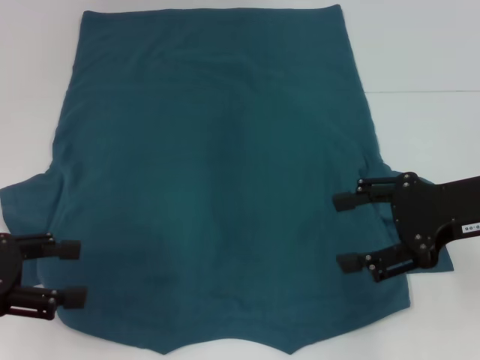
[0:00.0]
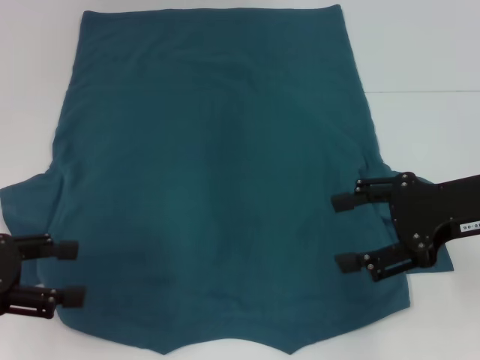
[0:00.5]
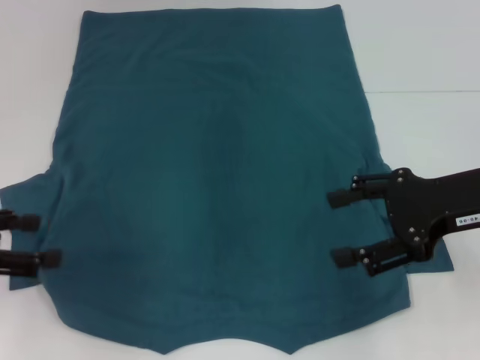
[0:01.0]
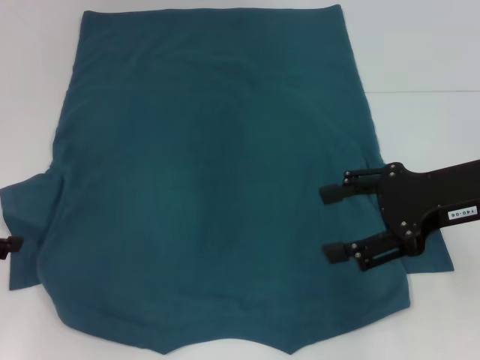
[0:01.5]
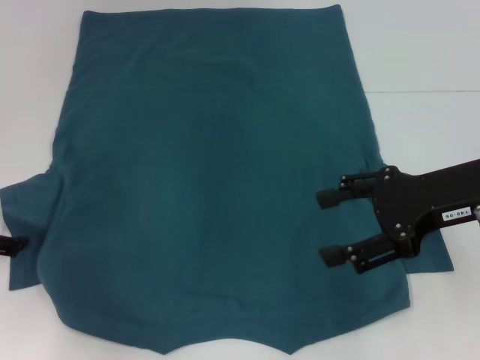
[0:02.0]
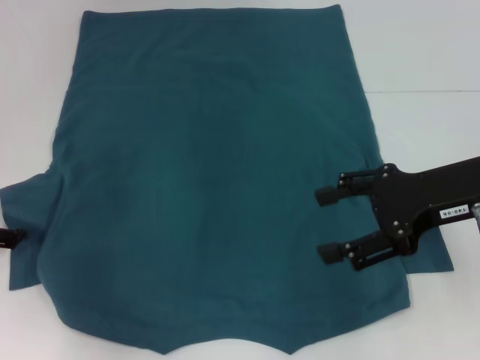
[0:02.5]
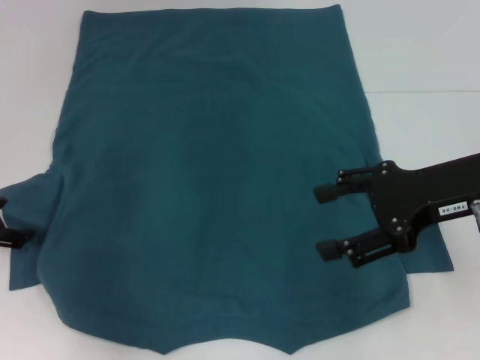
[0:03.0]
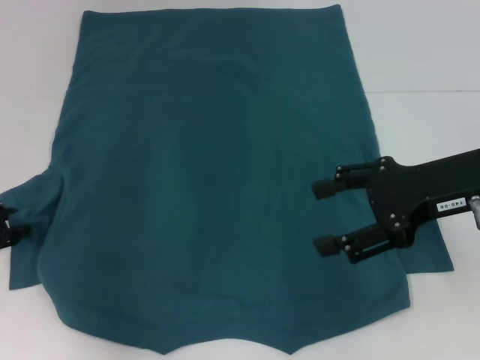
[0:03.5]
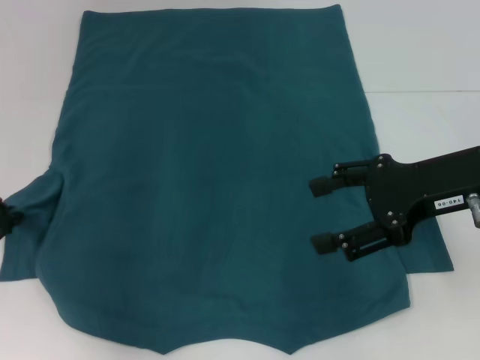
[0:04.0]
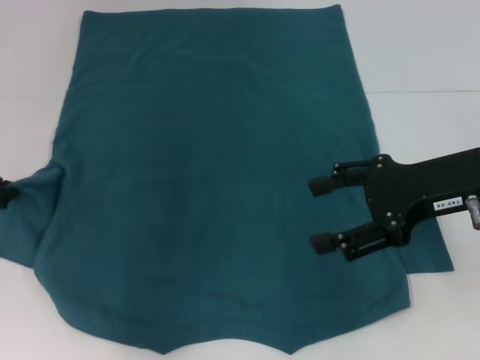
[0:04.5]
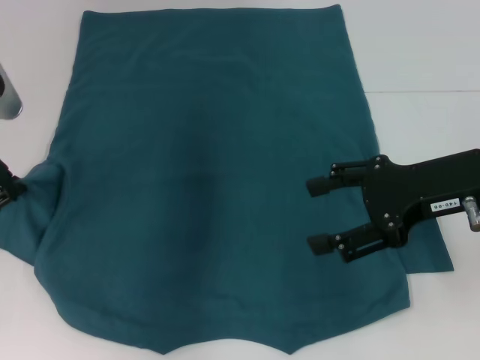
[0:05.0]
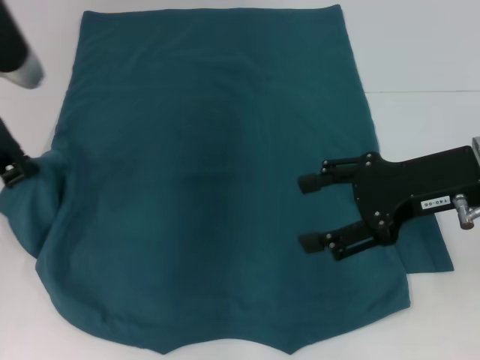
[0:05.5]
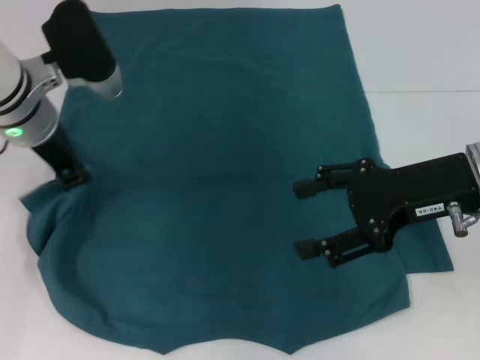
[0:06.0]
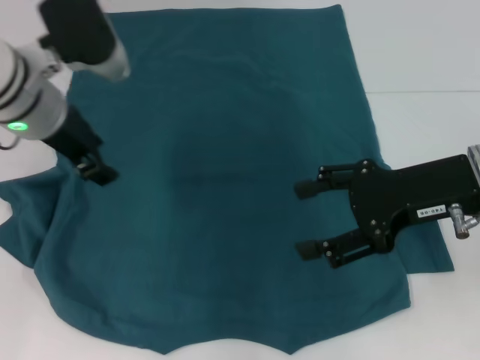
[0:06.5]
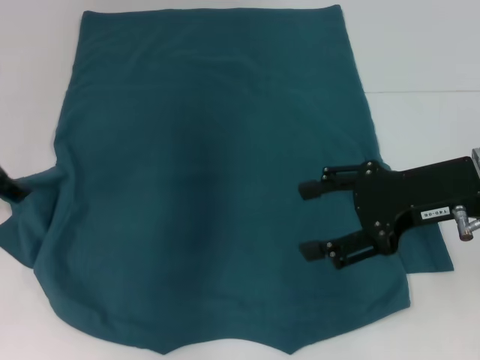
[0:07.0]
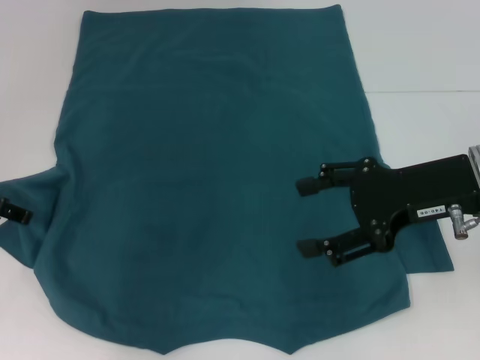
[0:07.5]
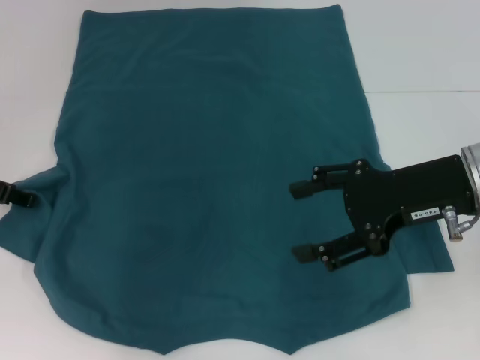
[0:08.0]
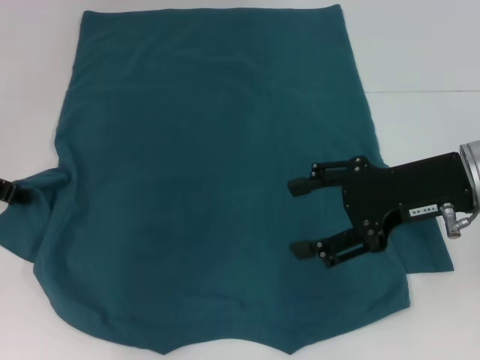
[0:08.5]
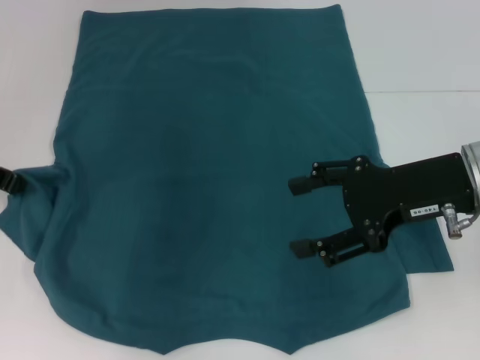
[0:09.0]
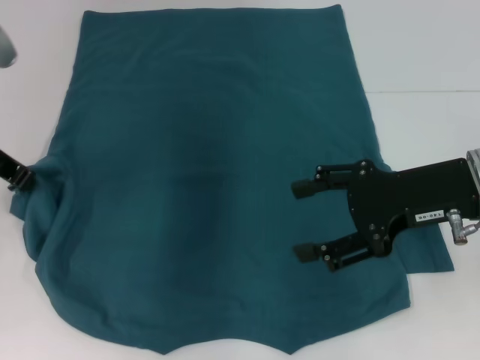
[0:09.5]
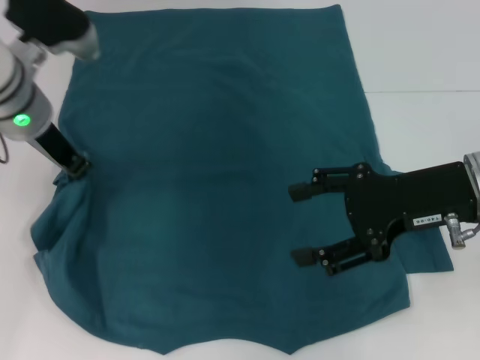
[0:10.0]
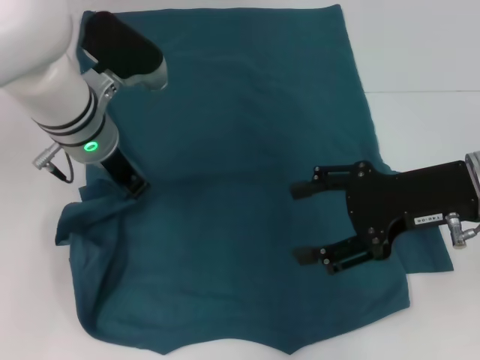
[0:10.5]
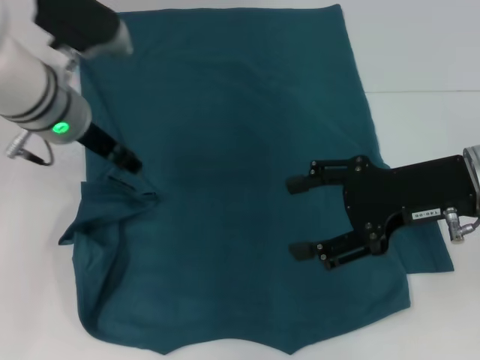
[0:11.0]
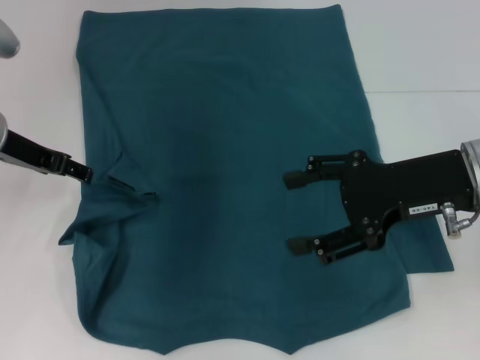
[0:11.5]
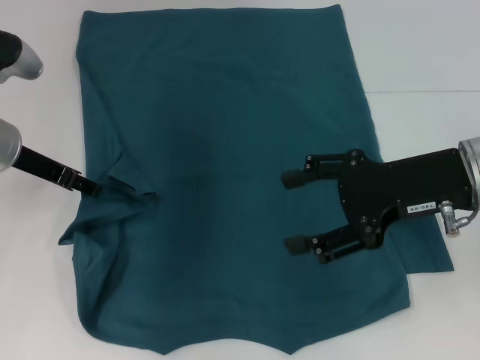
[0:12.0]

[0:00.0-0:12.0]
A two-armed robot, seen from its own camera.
0:00.0 to 0:02.0: The left gripper is displaced forward by approximately 5 cm.
0:02.0 to 0:04.0: The left gripper closes.
0:04.0 to 0:06.0: The left gripper moves to the right, upward and forward, approximately 15 cm.
0:06.0 to 0:08.0: The left gripper goes approximately 15 cm to the left and downward, and opens its fingers.
0:08.0 to 0:10.0: The left gripper is displaced to the right by some 10 cm, and closes its fingers.
0:10.0 to 0:12.0: The left gripper shifts about 5 cm to the left, and opens up.

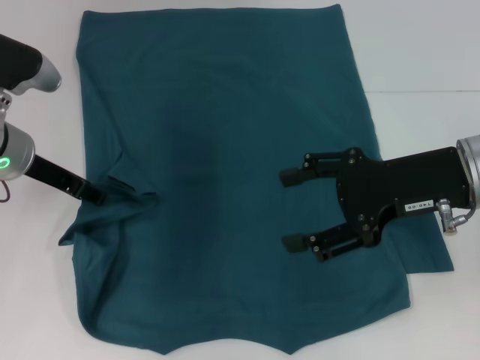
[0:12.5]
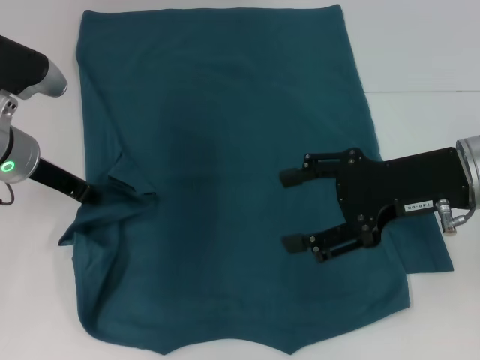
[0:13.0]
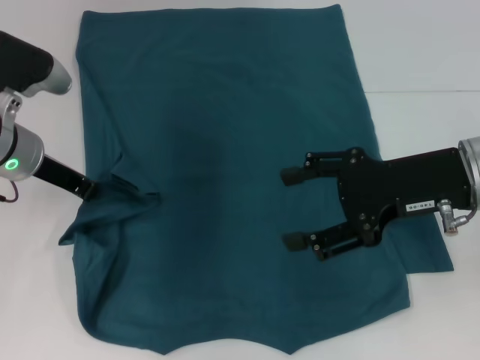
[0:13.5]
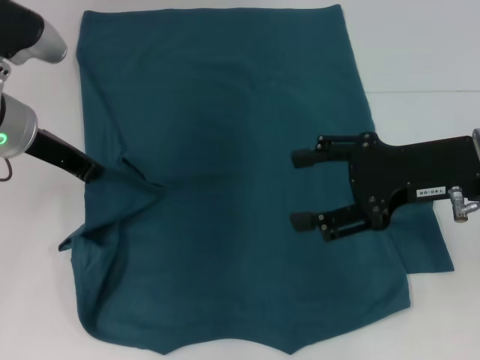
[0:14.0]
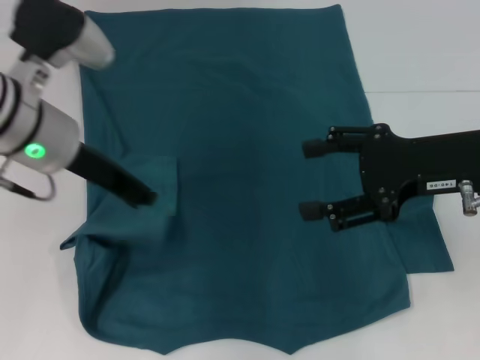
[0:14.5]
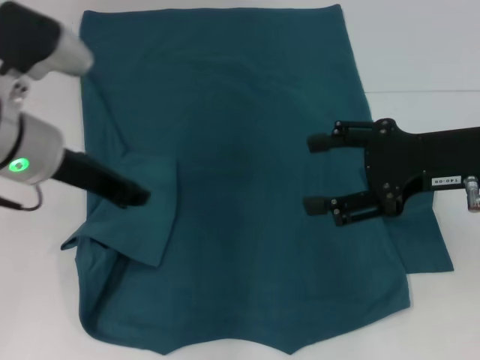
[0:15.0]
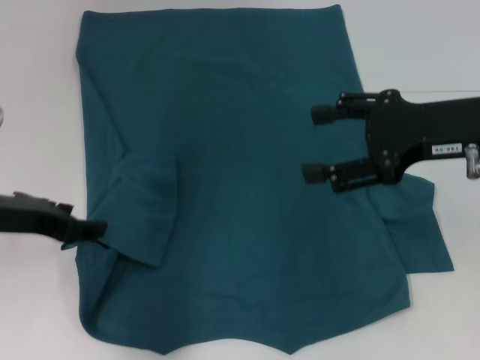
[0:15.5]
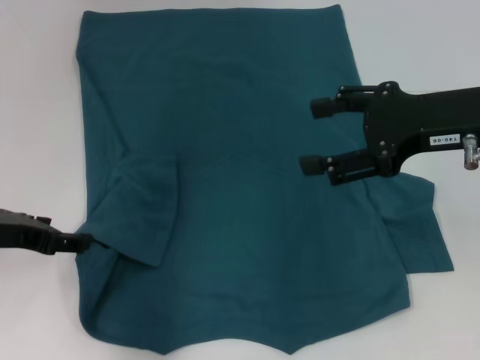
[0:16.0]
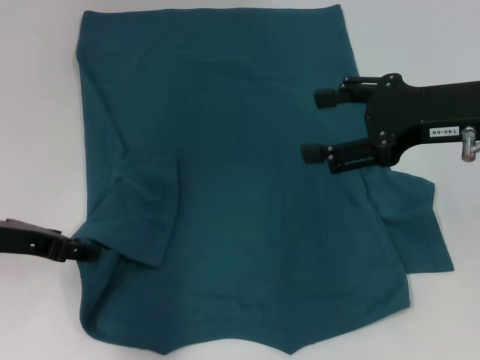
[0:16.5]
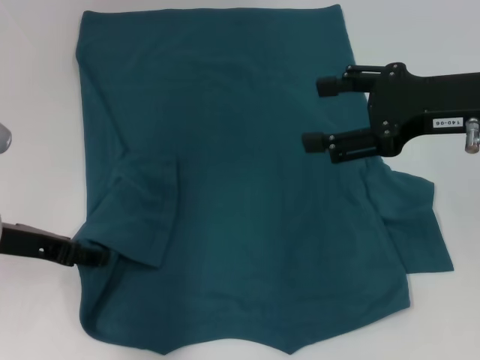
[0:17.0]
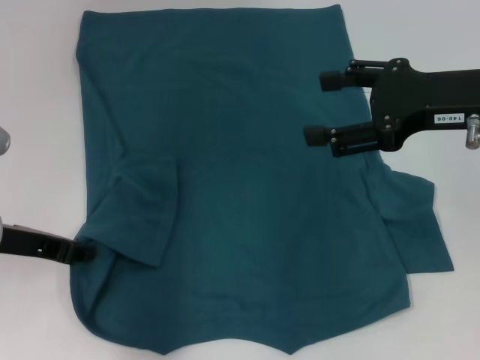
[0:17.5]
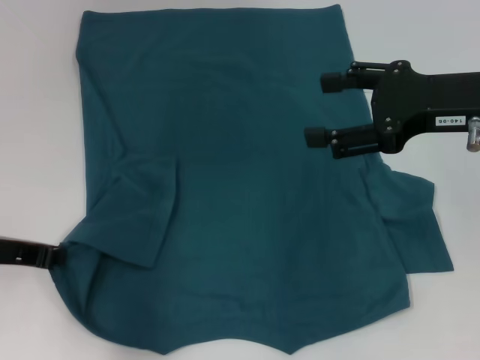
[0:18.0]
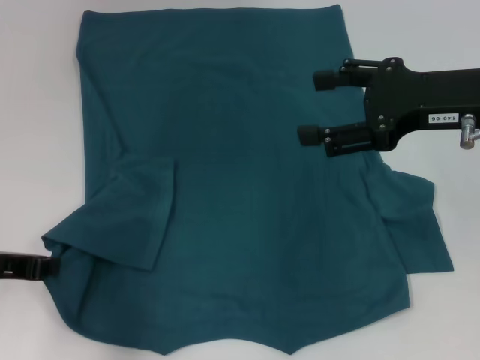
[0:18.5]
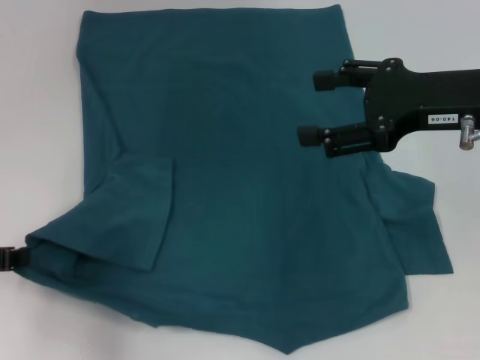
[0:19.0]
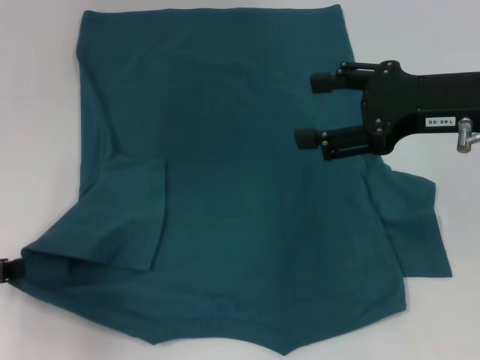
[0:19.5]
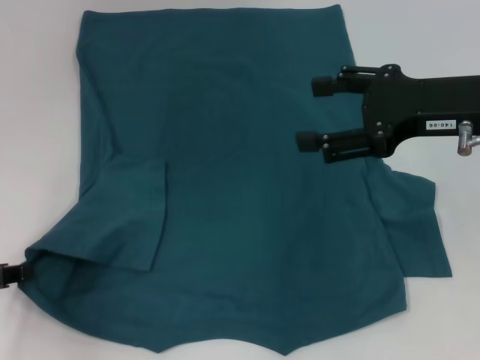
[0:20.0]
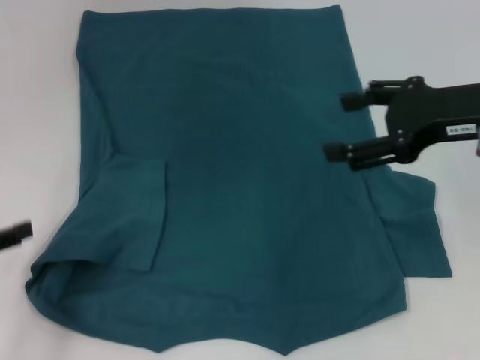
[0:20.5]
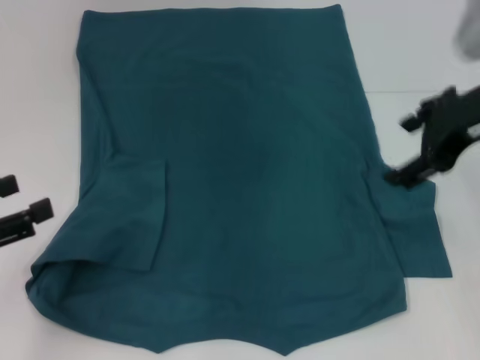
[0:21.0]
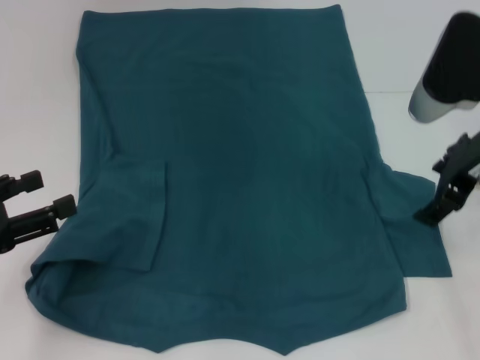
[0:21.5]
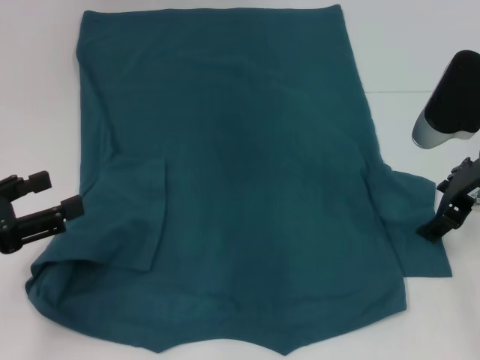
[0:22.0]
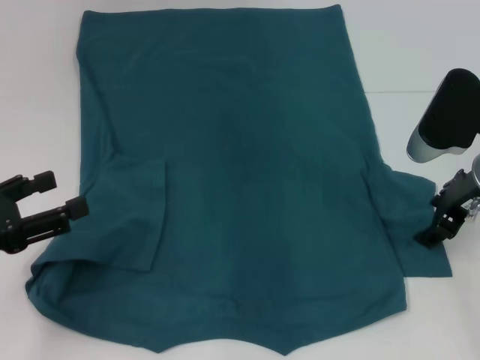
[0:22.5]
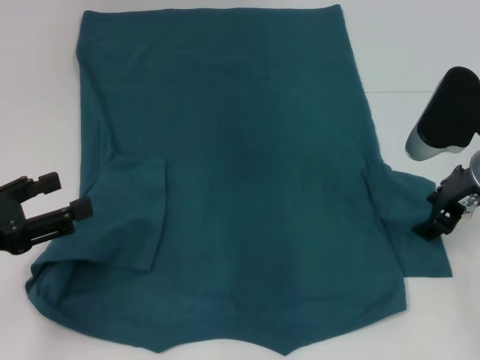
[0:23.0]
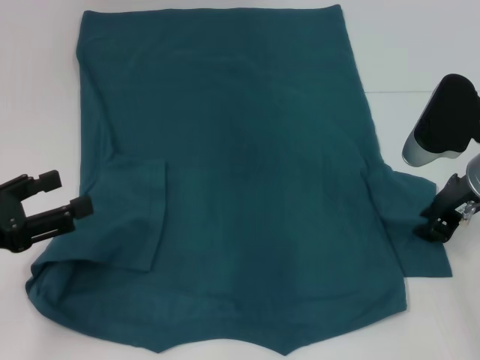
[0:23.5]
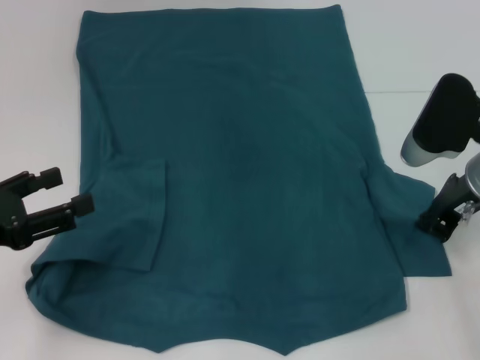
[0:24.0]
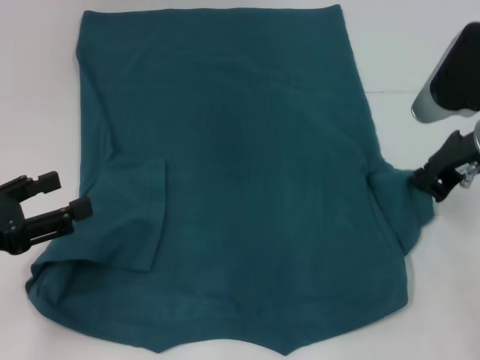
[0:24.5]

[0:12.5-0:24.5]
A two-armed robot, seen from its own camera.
Step, 0:12.5 to 0:20.0: Fold the bottom left sleeve with your left hand.
0:12.5 to 0:14.5: The left gripper heads to the right and upward, covering roughly 10 cm, and closes up.
0:14.5 to 0:16.5: The left gripper heads to the left, backward and downward, covering some 10 cm, and opens.
0:16.5 to 0:18.5: The left gripper closes.
0:18.5 to 0:20.5: The left gripper changes place by some 5 cm, and opens its fingers.
0:20.5 to 0:22.5: The left gripper opens up. The right gripper heads downward, covering roughly 10 cm.
0:22.5 to 0:24.5: The right gripper closes.

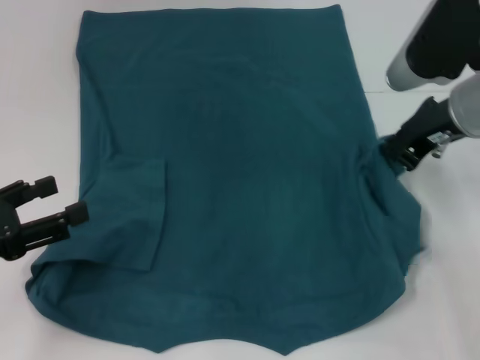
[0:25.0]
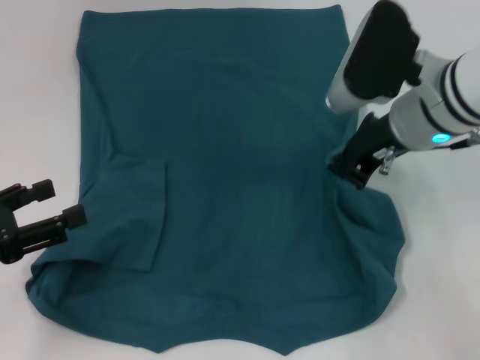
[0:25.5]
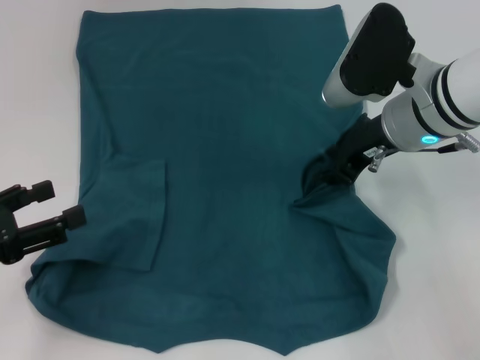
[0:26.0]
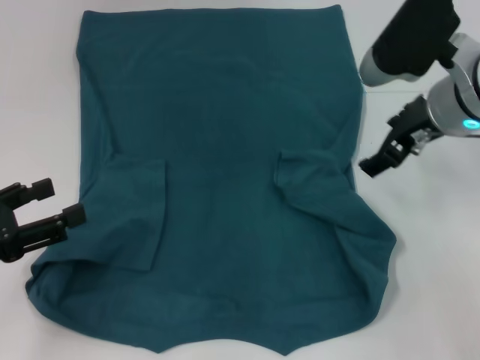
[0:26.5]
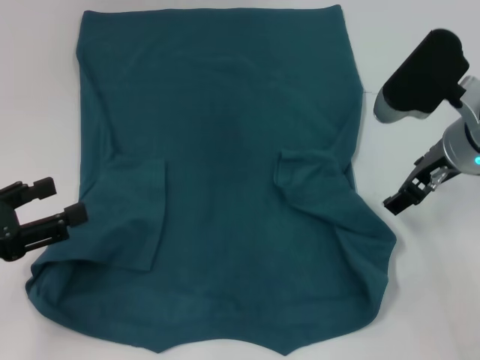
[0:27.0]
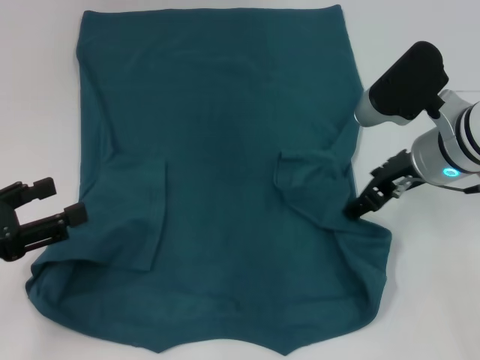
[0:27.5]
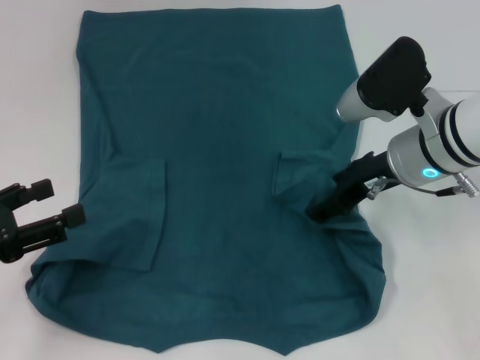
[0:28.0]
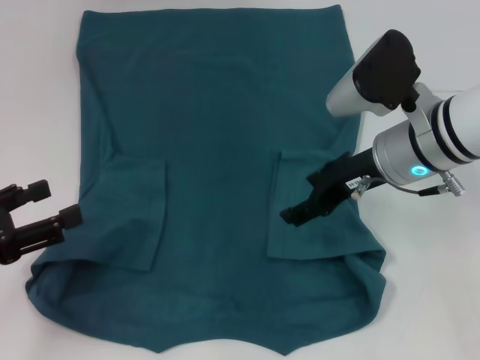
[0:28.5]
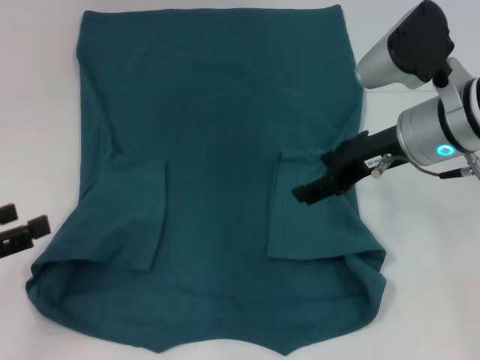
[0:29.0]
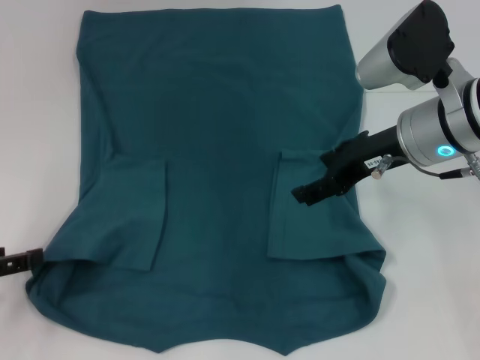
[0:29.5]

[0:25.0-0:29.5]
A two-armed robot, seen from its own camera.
Step, 0:25.0 to 0:28.5: Fold the bottom right sleeve to the right.
0:25.0 to 0:27.0: The right gripper opens.
